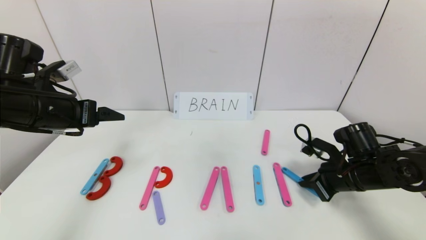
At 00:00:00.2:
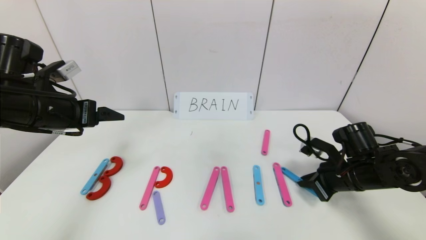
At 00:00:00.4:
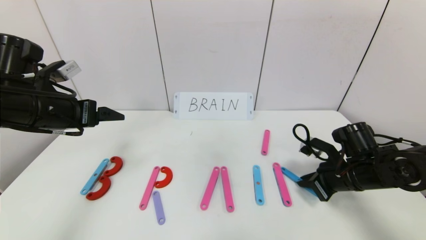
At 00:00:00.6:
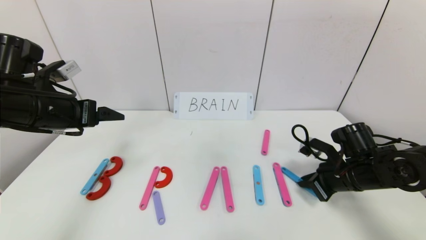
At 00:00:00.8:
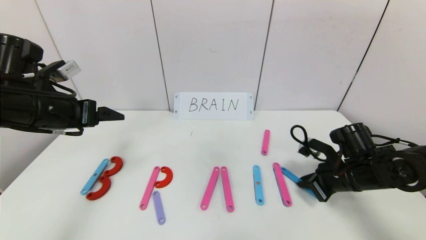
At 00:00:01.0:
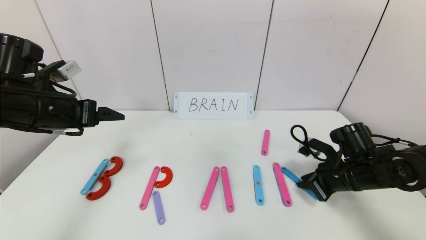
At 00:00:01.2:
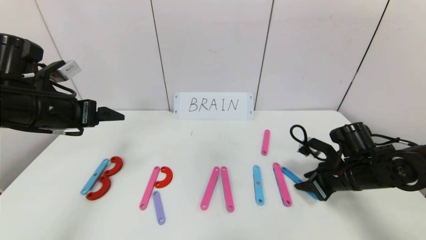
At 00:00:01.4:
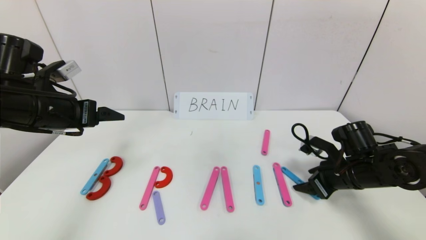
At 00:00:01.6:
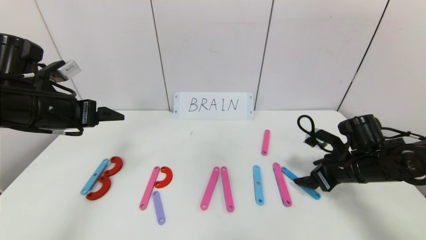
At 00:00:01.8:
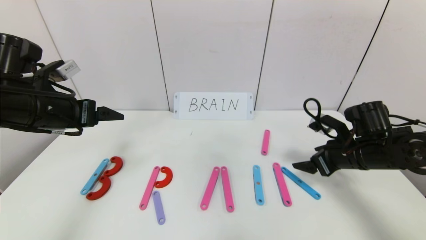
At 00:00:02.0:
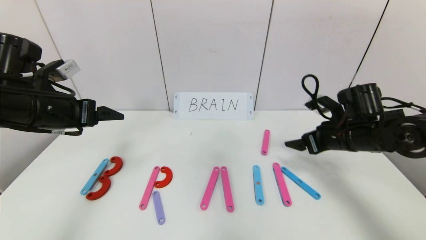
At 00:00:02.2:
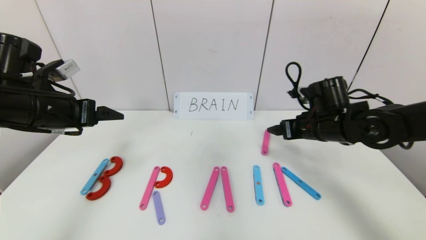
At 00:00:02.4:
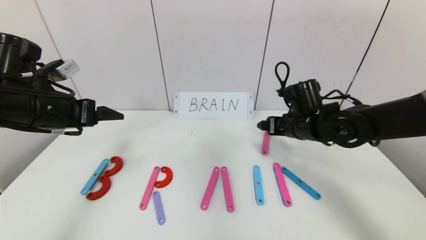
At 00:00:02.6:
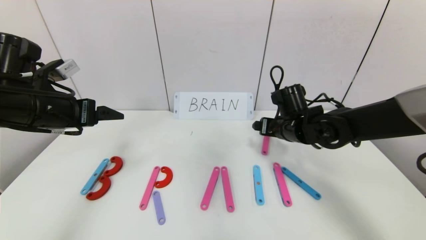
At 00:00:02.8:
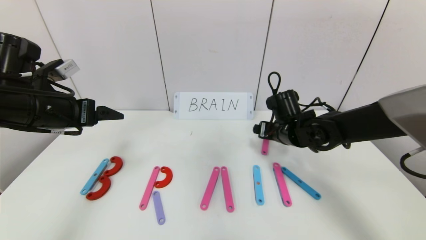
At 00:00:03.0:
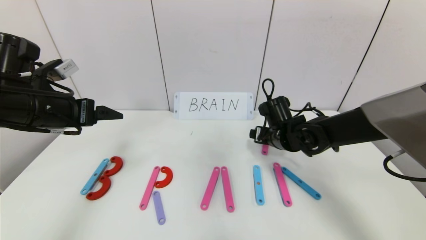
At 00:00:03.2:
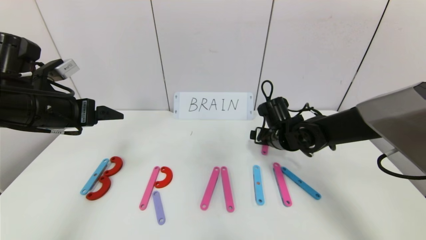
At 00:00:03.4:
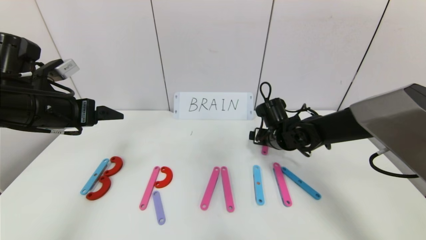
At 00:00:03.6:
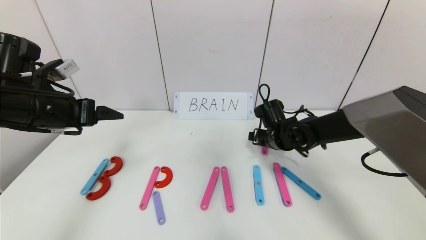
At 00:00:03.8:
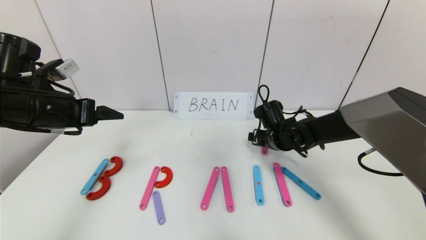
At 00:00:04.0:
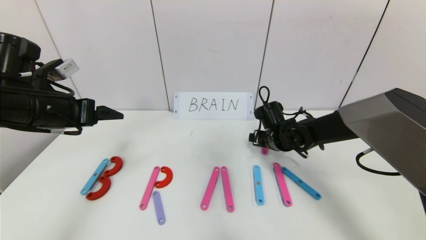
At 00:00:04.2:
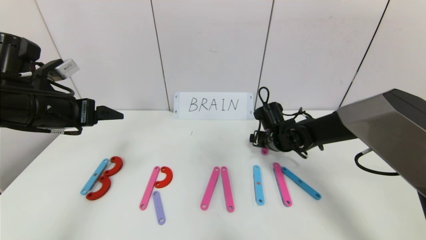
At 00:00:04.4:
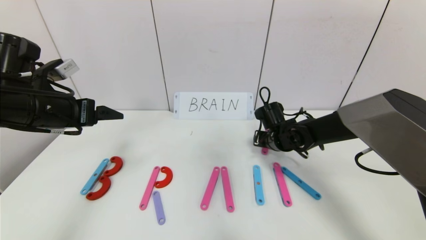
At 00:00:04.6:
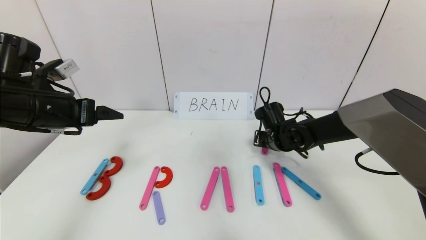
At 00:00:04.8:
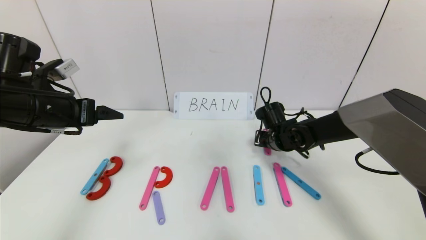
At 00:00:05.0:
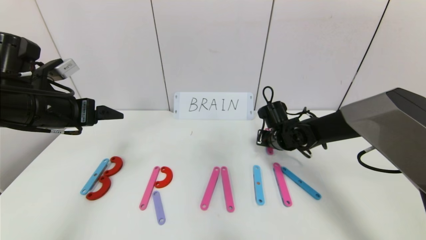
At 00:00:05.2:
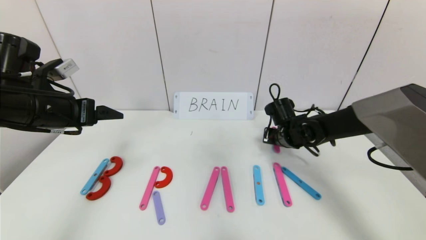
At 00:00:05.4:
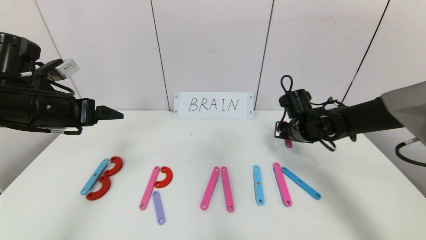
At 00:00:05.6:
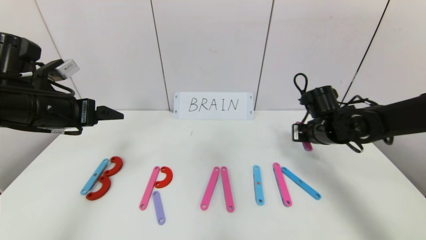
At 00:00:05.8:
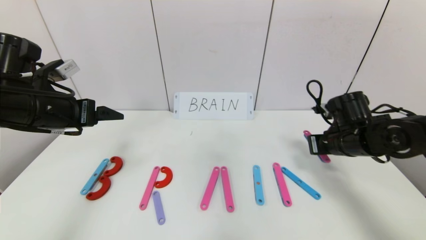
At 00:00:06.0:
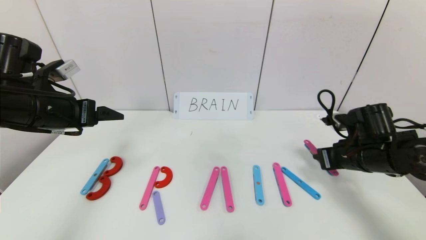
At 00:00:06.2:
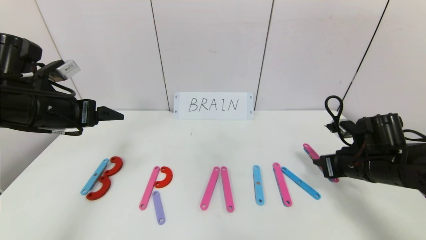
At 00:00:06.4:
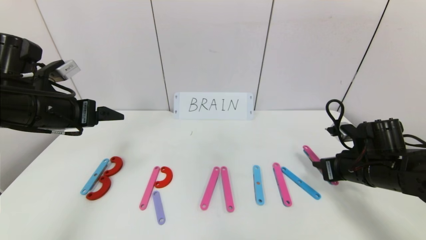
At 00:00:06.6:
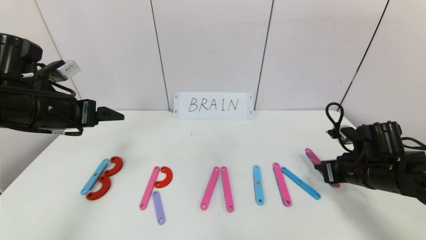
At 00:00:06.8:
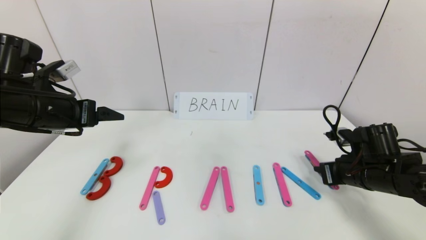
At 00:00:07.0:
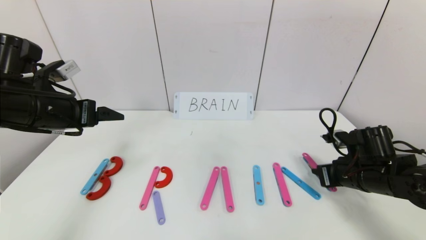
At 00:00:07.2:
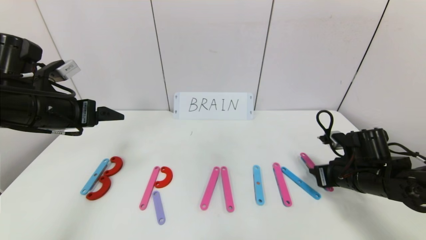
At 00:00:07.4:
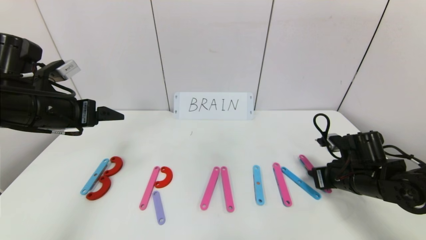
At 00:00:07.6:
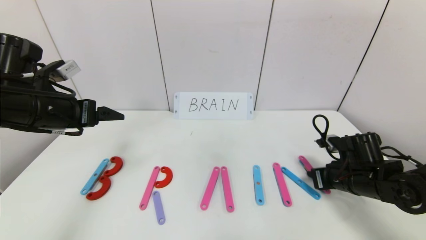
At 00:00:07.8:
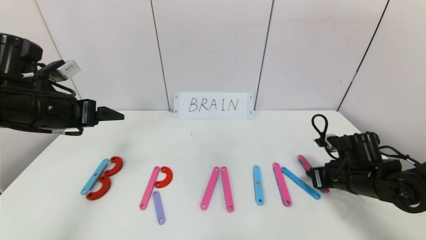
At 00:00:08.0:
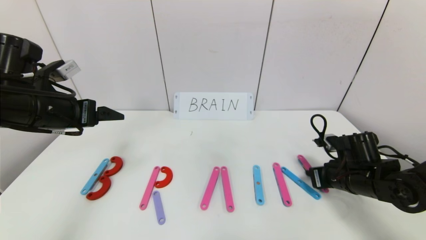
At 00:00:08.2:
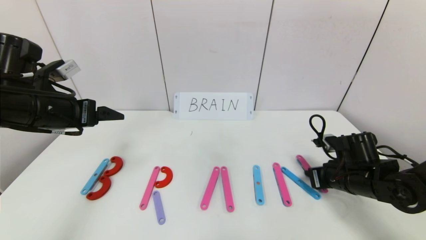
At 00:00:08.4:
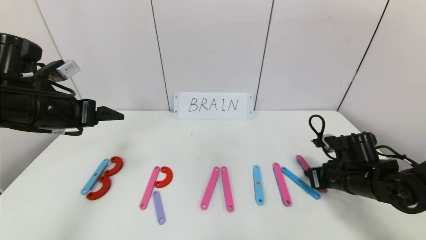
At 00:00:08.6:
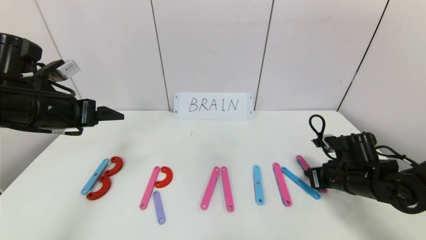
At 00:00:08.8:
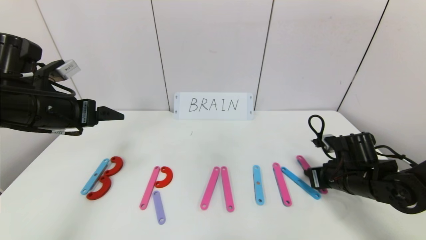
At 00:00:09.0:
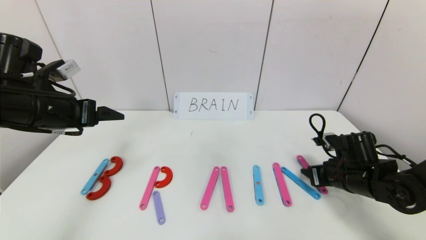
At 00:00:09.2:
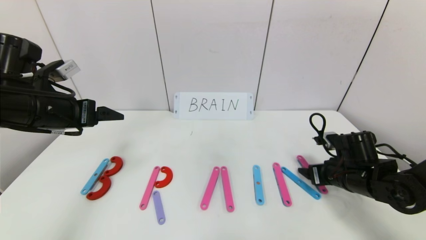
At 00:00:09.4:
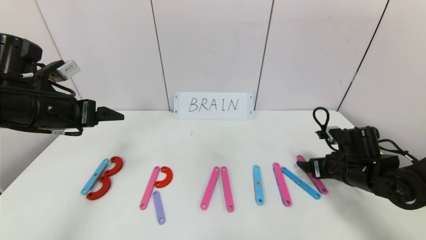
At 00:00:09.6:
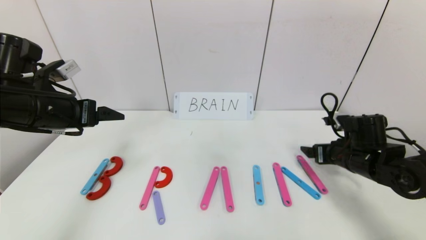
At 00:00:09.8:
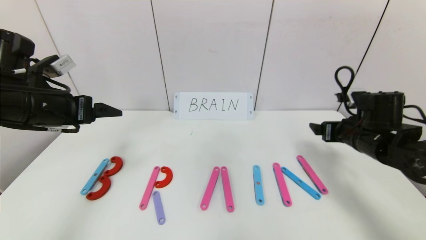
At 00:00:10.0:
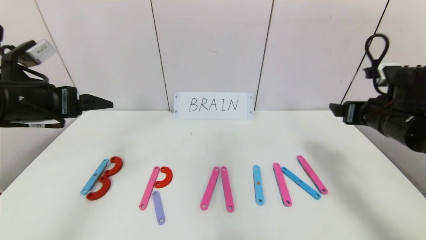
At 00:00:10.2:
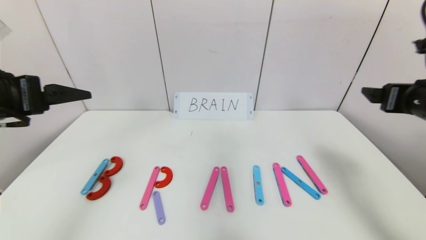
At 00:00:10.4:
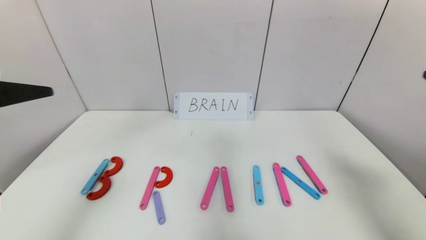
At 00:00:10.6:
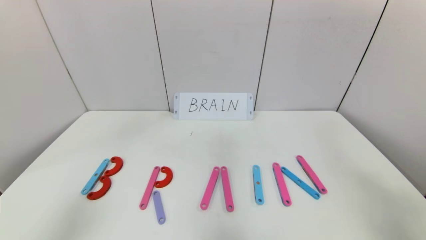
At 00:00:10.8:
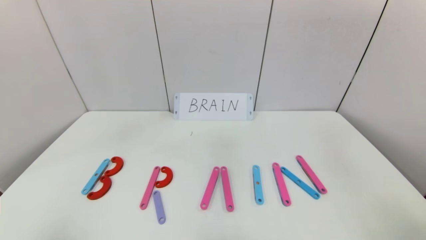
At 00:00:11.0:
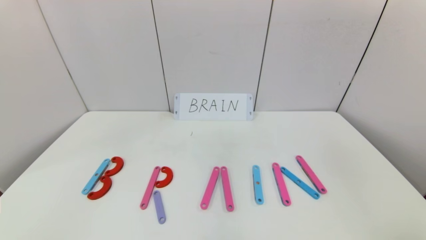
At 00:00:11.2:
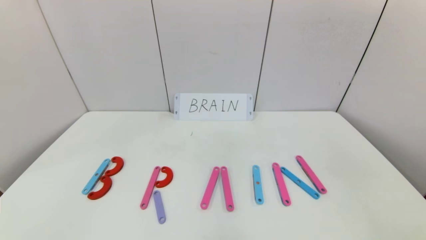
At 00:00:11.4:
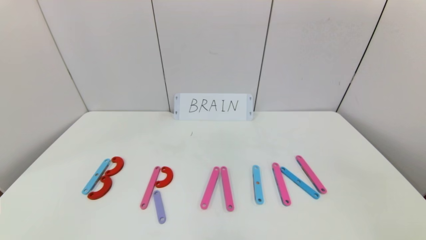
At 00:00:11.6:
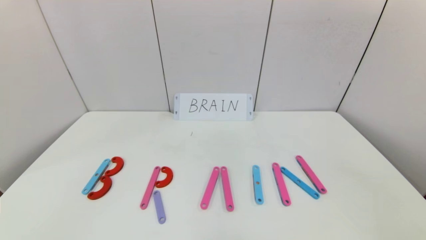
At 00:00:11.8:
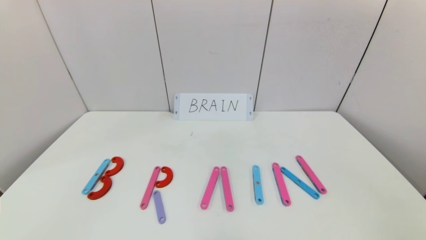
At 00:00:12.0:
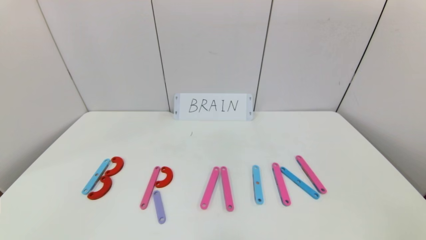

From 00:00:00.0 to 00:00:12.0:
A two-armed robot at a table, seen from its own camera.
Task of the whole recording: rearrange the word baai as brain.
Step, from 00:00:00.0 to 00:00:09.0: Place the character N after character I.
From 00:00:00.0 to 00:00:01.6: The right gripper opens its fingers.
From 00:00:01.6 to 00:00:03.0: The right gripper goes about 15 cm to the left and forward.
From 00:00:03.0 to 00:00:04.4: The right gripper closes.
From 00:00:04.4 to 00:00:06.0: The right gripper heads to the right and backward, covering about 20 cm, and closes.
From 00:00:06.0 to 00:00:07.6: The right gripper travels downward by some 5 cm.
From 00:00:07.6 to 00:00:09.0: The right gripper opens up.
From 00:00:09.0 to 00:00:10.4: The left gripper is displaced backward and upward by about 15 cm. The right gripper is displaced upward and backward by some 30 cm, and opens its fingers.
From 00:00:10.4 to 00:00:12.0: The two grippers go about 30 cm backward.
